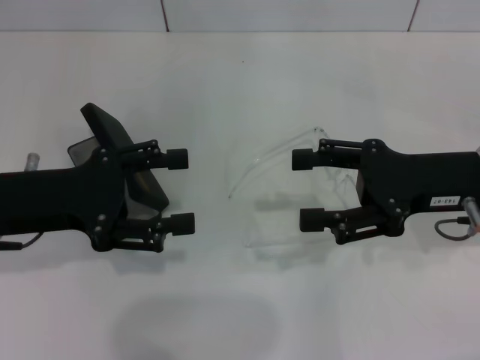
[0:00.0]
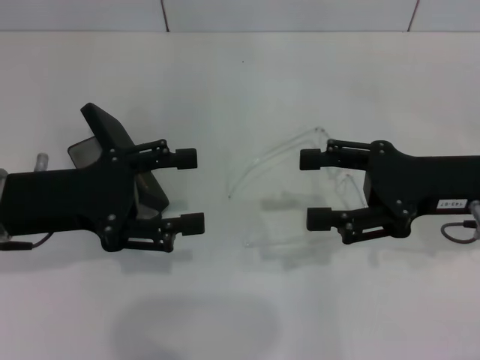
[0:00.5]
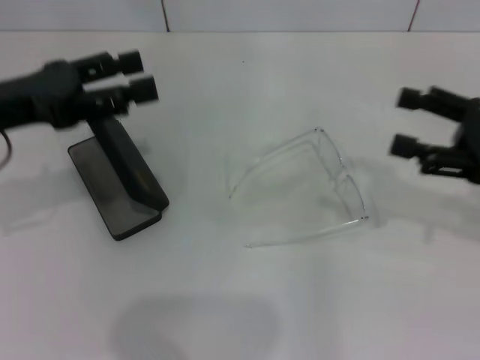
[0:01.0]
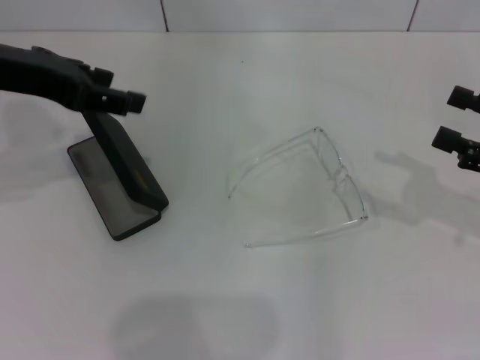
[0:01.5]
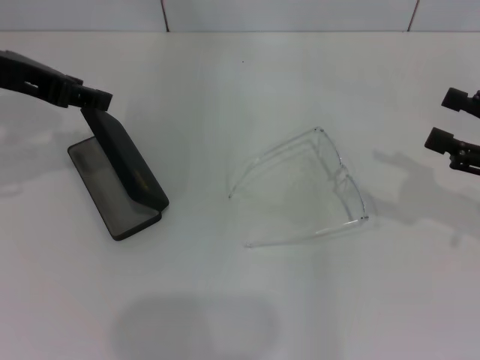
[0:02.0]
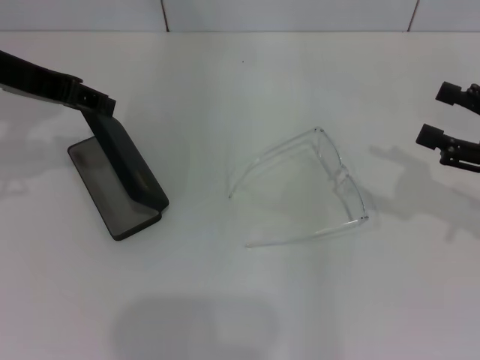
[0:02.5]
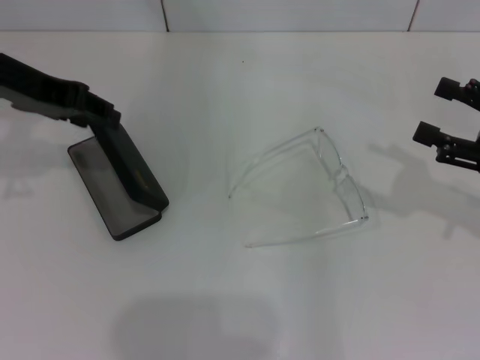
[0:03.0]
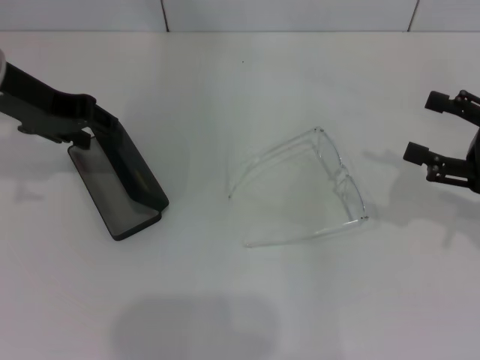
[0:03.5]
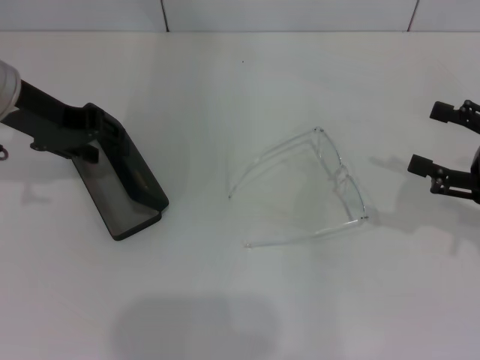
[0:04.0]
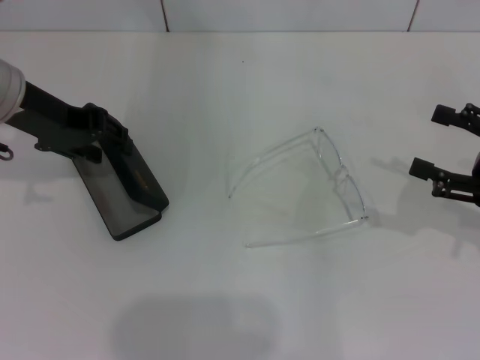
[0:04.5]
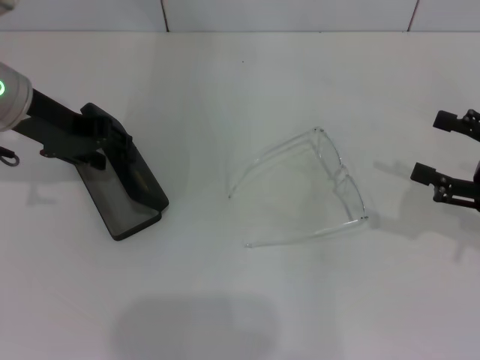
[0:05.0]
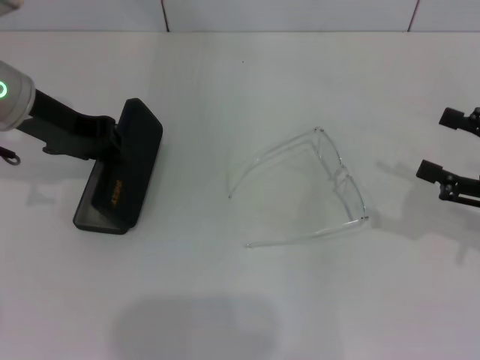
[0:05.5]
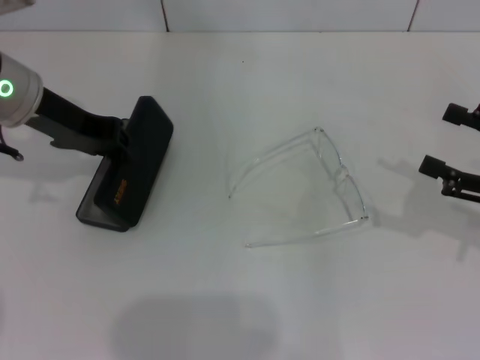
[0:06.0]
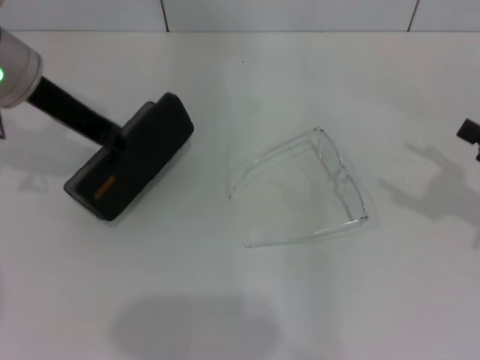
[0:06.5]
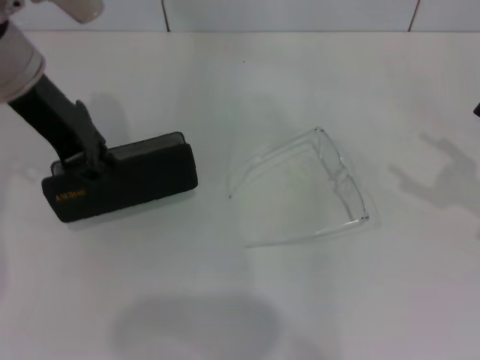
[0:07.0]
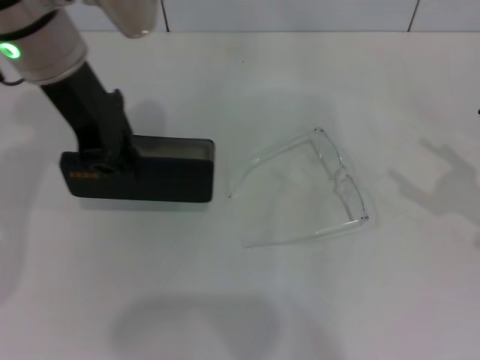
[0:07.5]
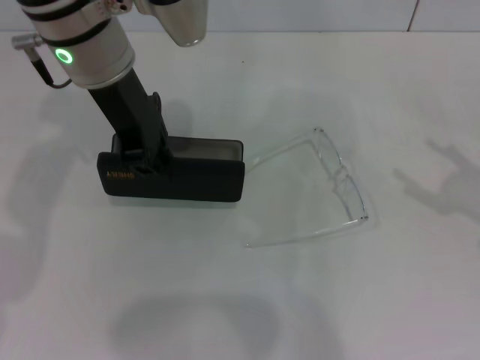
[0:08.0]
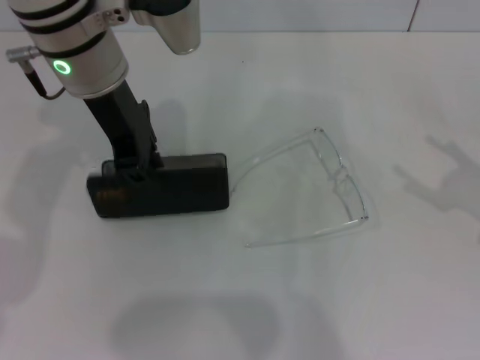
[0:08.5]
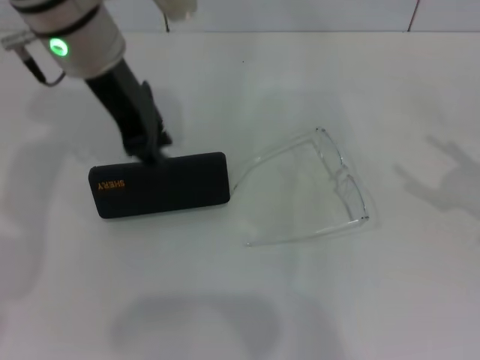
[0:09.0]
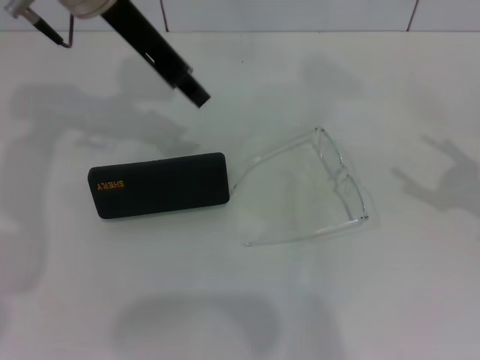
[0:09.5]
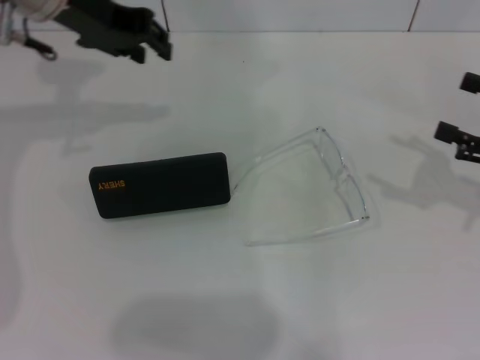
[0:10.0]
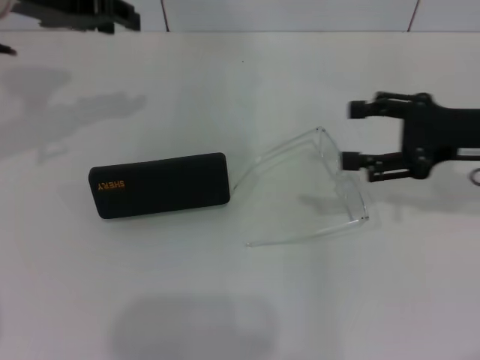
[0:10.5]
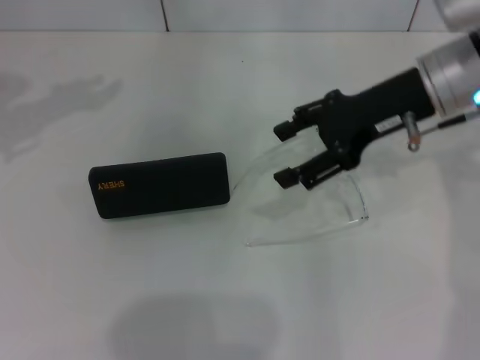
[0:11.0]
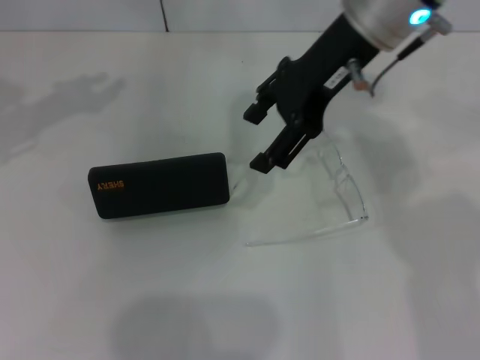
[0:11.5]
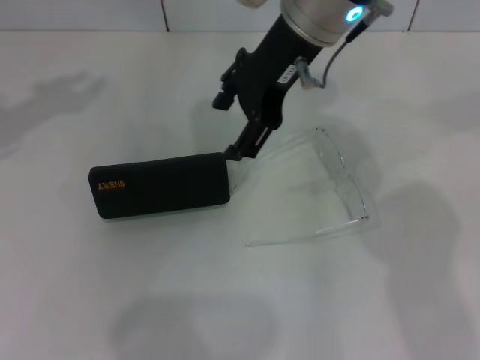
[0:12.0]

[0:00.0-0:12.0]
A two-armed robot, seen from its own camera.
Step, 0:00.0 to 0:05.5: Grab the glasses case with your left hand.
0:00.0 to 0:02.0: The right gripper heads to the right, covering roughly 10 cm, while the left gripper travels upward and forward by approximately 15 cm.
0:02.0 to 0:04.0: The left gripper heads downward, covering some 5 cm.
0:04.0 to 0:06.0: There are only small adjustments of the grippers.
0:06.0 to 0:08.0: The left gripper goes roughly 10 cm to the right.
0:08.0 to 0:10.0: The left gripper moves to the left, roughly 5 cm; the right gripper ends up about 5 cm from where it was.
0:10.0 to 0:12.0: The right gripper moves to the left and upward, about 35 cm, while the left gripper heads to the left and backward, covering some 10 cm.

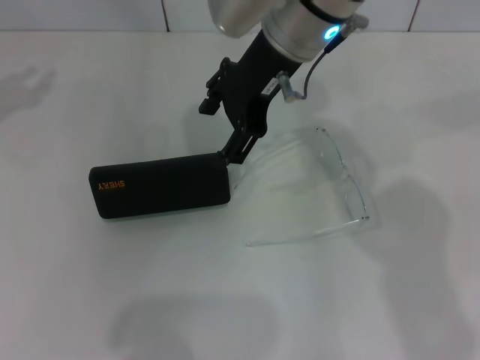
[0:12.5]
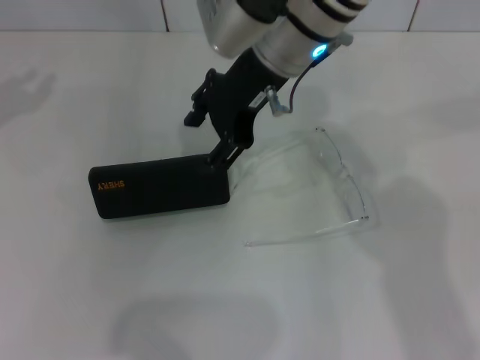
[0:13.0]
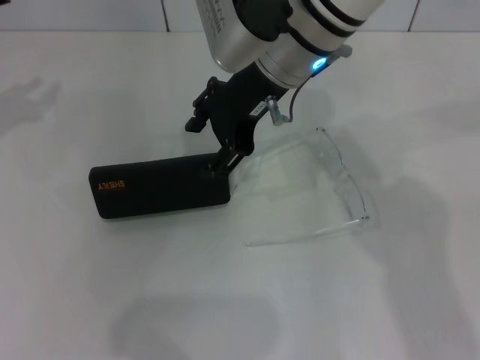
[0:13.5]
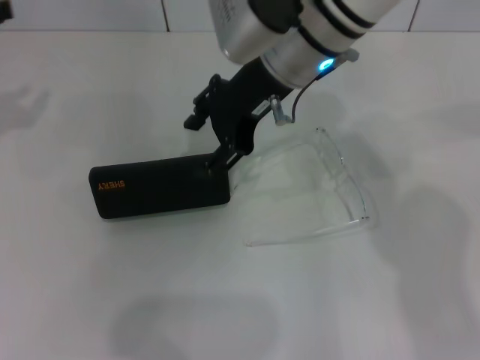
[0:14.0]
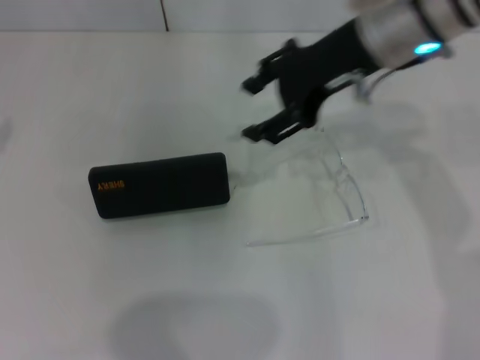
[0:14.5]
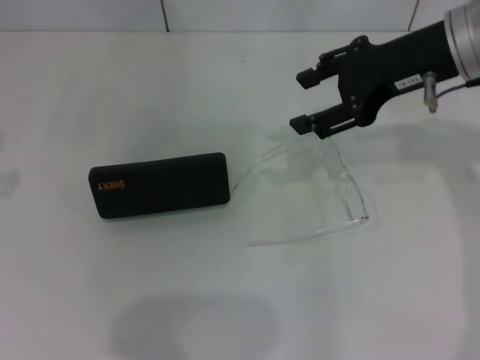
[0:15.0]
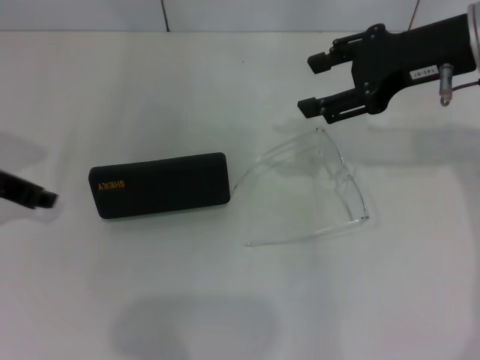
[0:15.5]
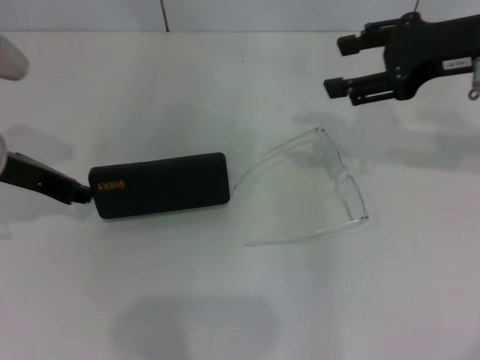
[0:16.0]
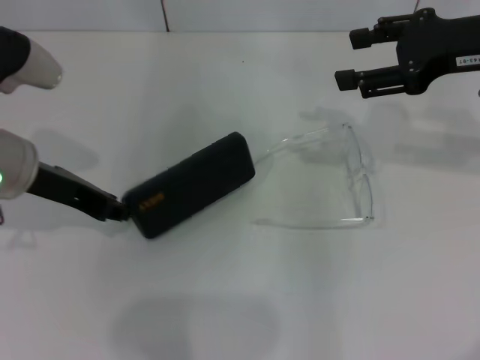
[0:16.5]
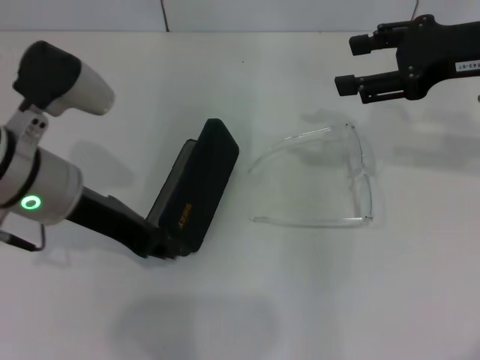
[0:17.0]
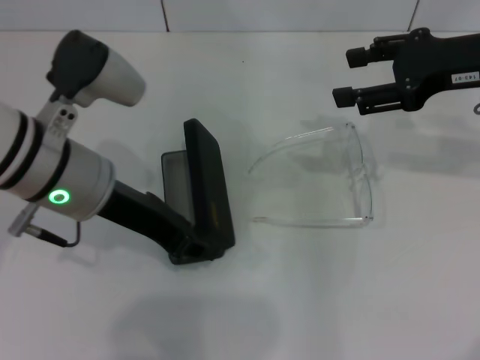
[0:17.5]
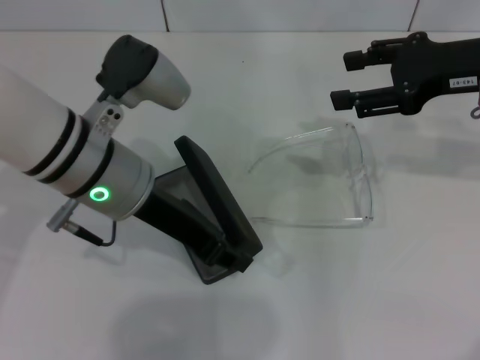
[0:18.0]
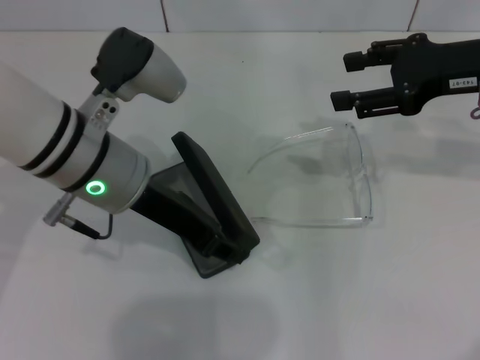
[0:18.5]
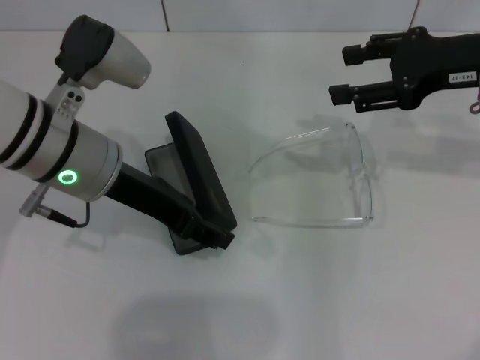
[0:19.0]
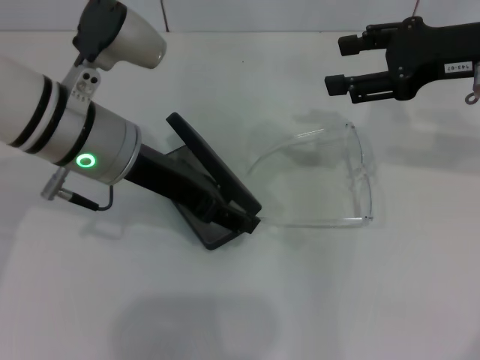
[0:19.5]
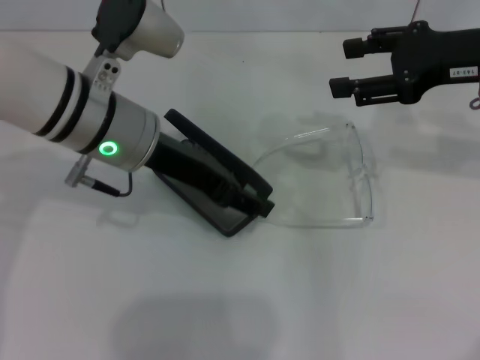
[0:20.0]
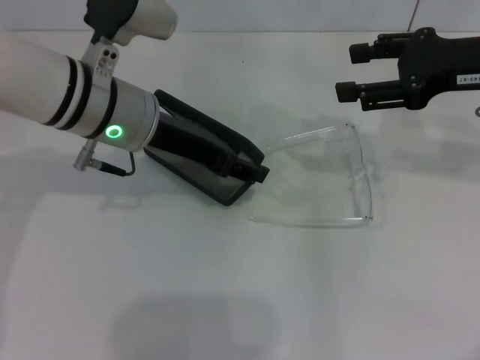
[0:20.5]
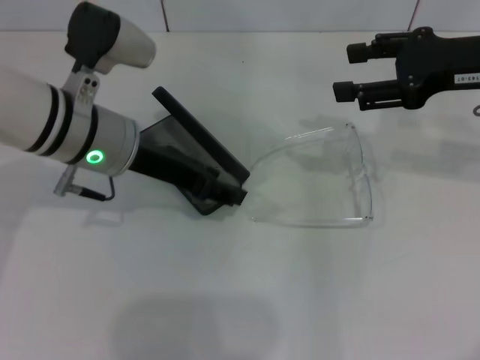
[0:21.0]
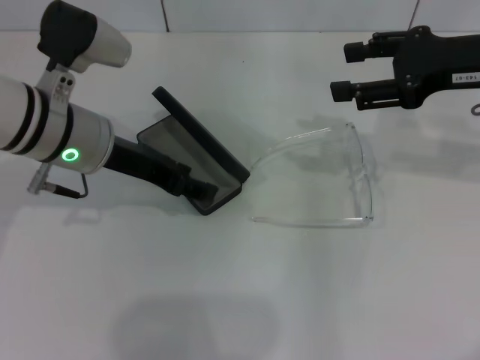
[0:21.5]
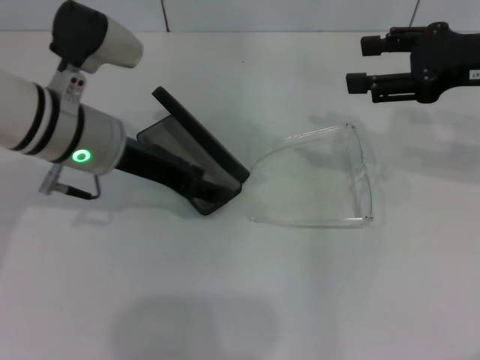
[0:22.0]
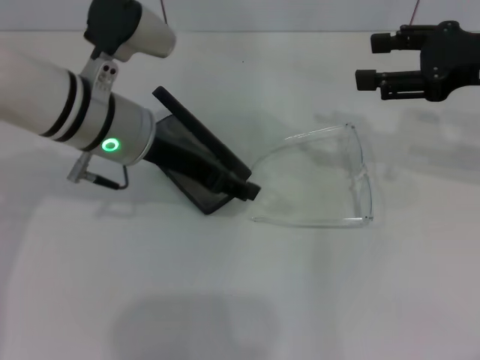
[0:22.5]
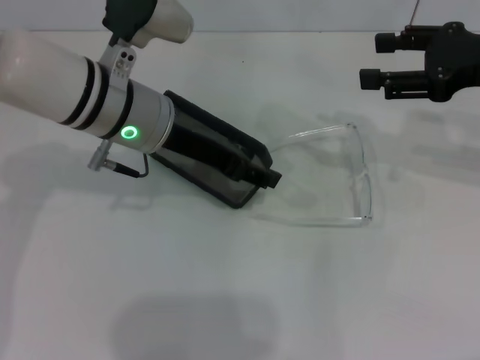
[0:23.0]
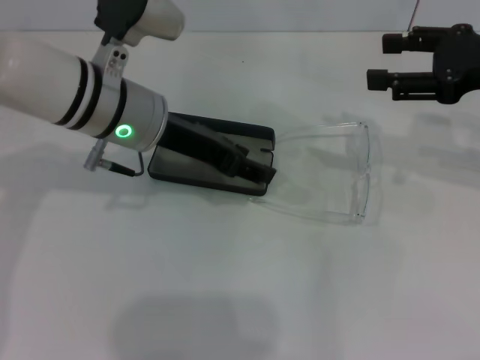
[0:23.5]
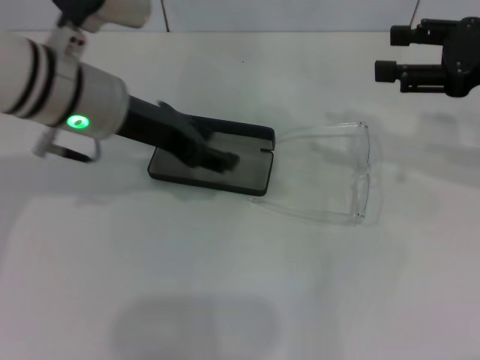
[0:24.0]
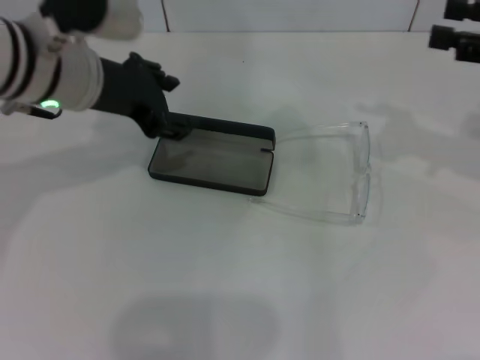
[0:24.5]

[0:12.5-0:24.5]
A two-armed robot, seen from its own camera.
0:12.5 to 0:14.5: The right gripper travels to the right by about 10 cm.
0:14.5 to 0:16.5: The left gripper shifts approximately 15 cm to the right and downward, while the right gripper heads to the right, covering roughly 10 cm.
0:16.5 to 0:18.5: The left gripper heads to the right, covering about 10 cm.
0:18.5 to 0:20.5: The left gripper opens up.
0:20.5 to 0:22.5: The grippers make only small movements.
0:22.5 to 0:24.5: The left gripper ends up about 5 cm from where it was. Meanwhile the right gripper moves to the right, some 5 cm.

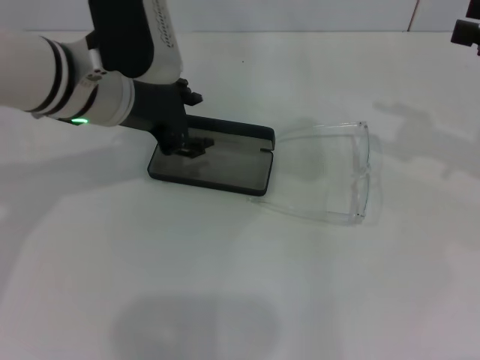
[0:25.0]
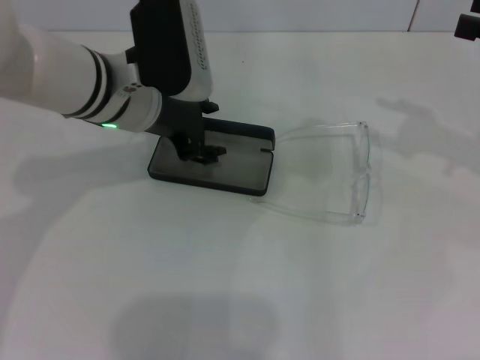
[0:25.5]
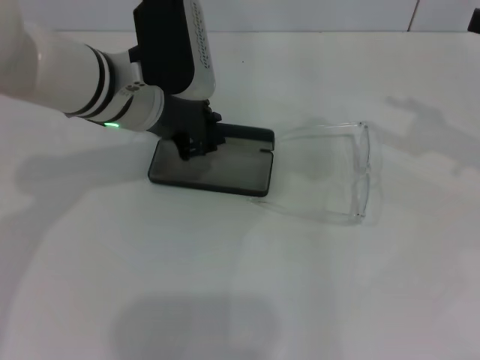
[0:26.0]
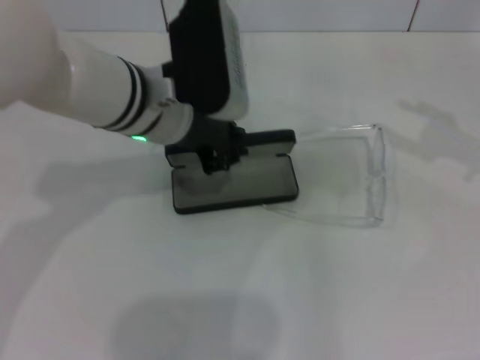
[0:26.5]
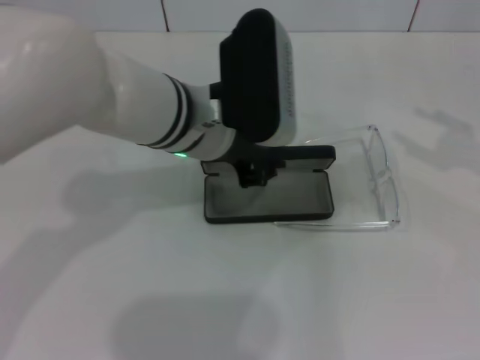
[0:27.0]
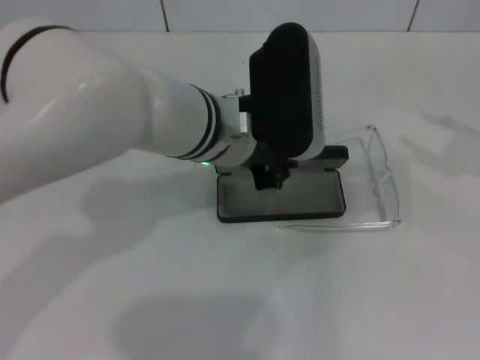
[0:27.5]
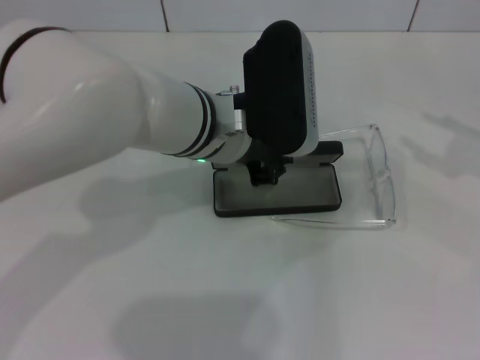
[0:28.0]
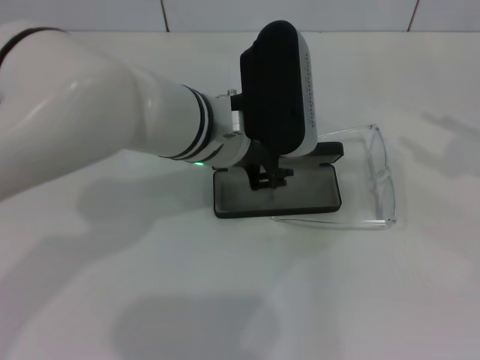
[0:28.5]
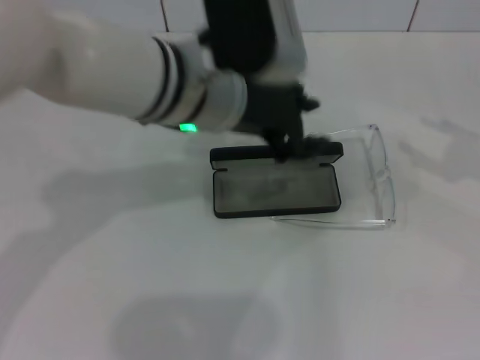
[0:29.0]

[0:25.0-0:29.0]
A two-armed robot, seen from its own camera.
Step, 0:25.0 to 0:28.0: Place the glasses case in the center of the table with your left hand.
0:25.0 to 0:27.0: The left gripper shifts some 10 cm to the right, and closes; the right gripper ends up some 5 cm from where it was.
0:27.0 to 0:29.0: The grippers move only a little.
